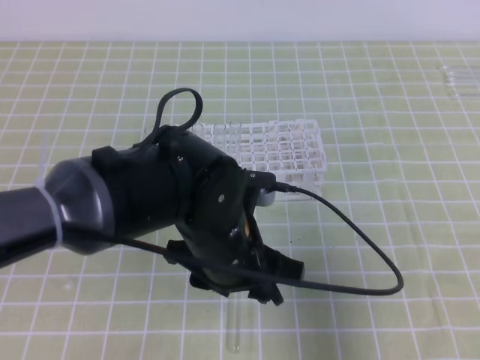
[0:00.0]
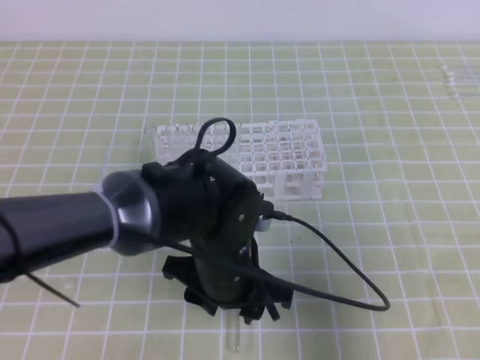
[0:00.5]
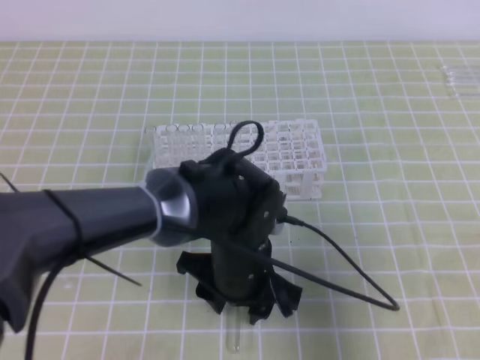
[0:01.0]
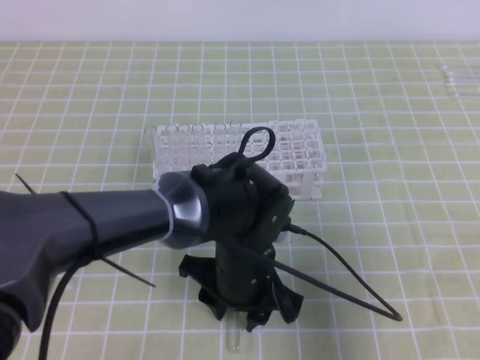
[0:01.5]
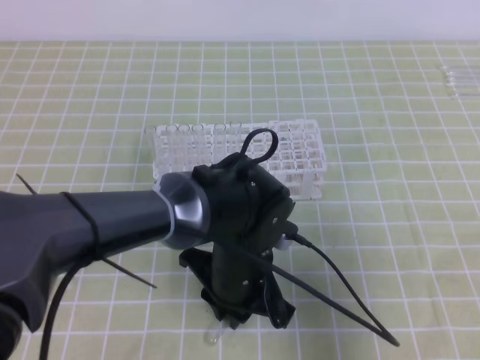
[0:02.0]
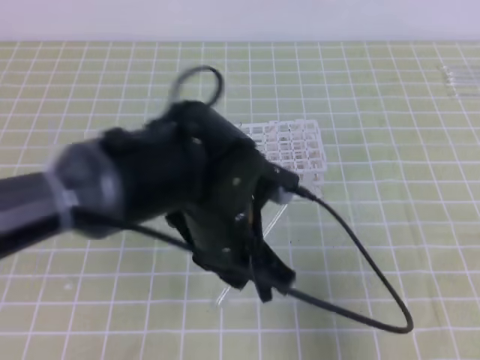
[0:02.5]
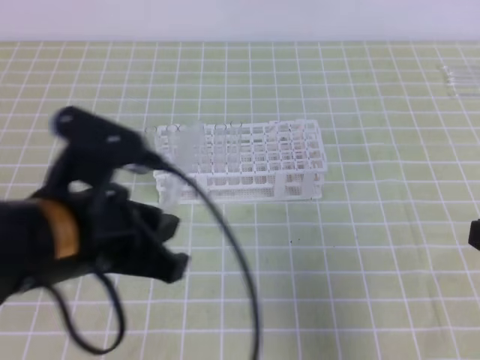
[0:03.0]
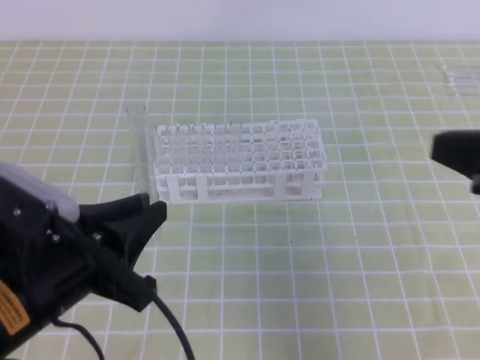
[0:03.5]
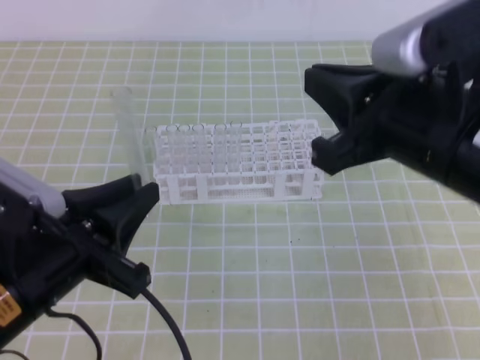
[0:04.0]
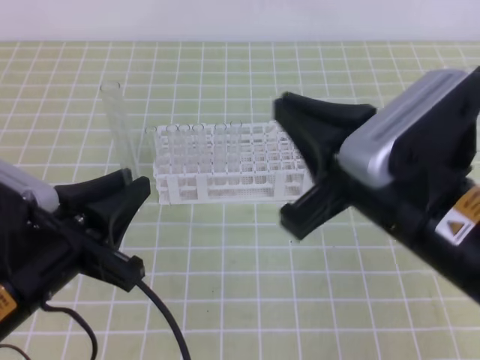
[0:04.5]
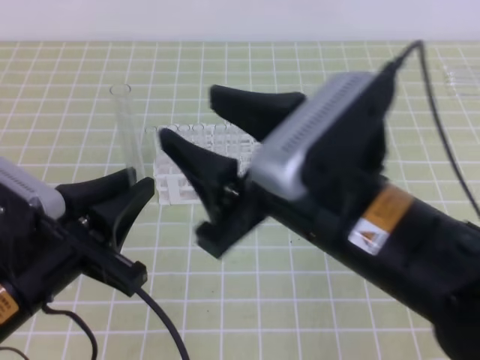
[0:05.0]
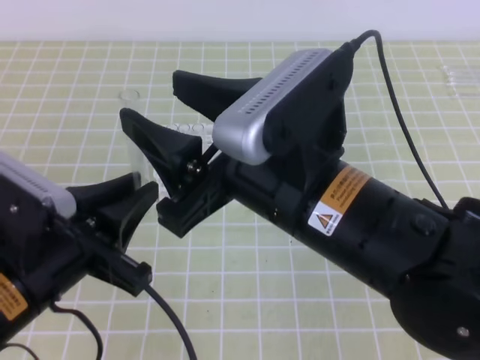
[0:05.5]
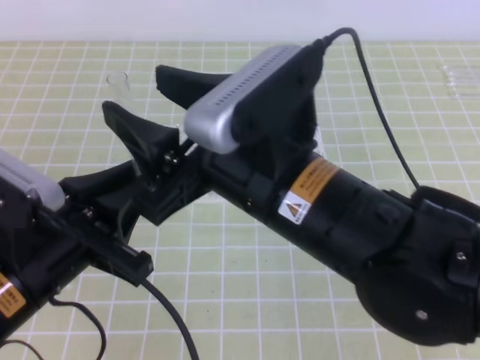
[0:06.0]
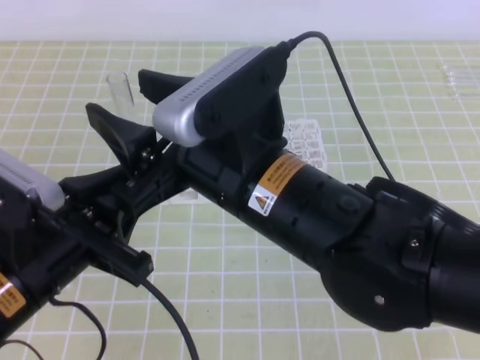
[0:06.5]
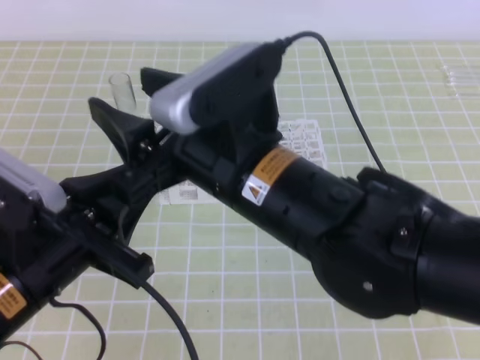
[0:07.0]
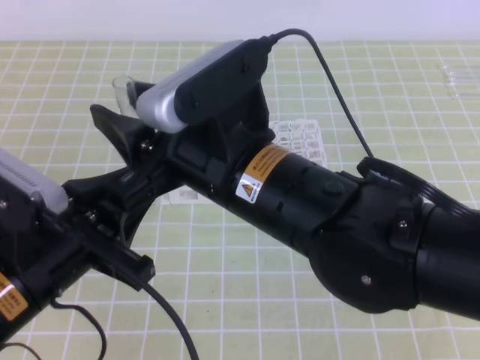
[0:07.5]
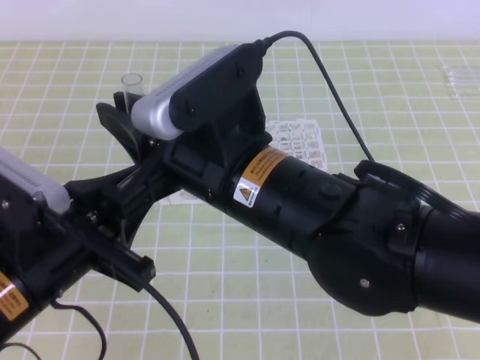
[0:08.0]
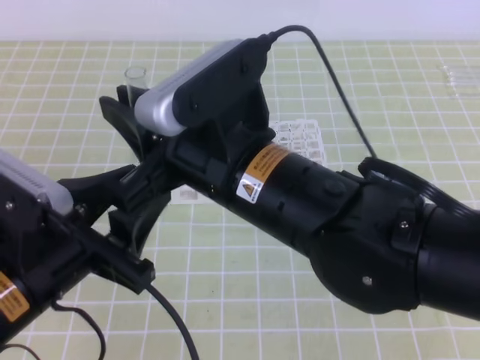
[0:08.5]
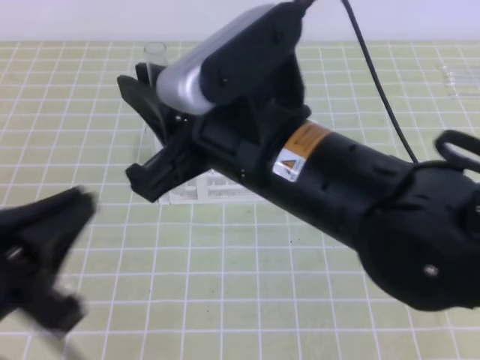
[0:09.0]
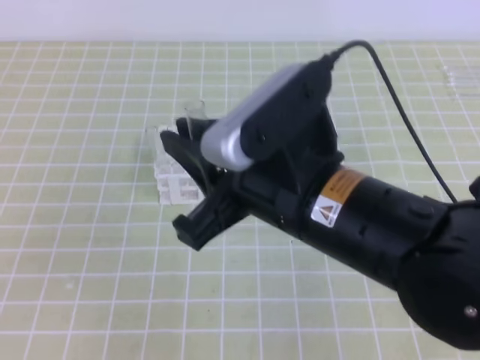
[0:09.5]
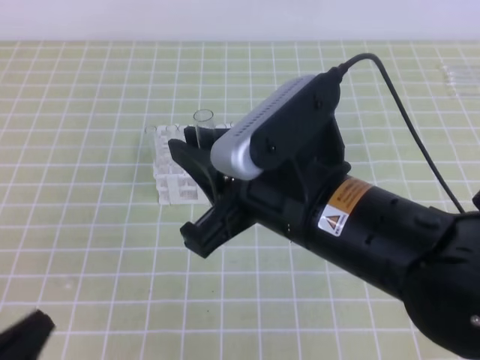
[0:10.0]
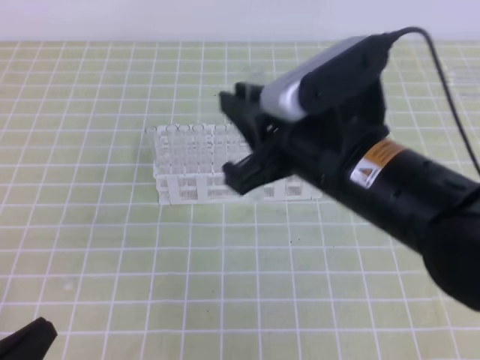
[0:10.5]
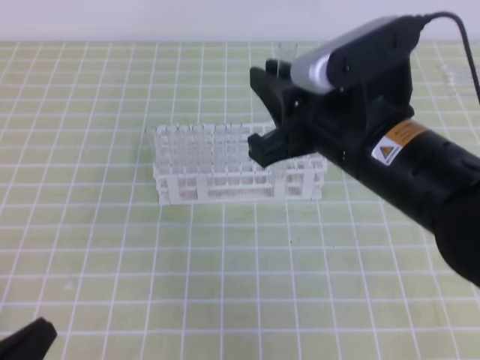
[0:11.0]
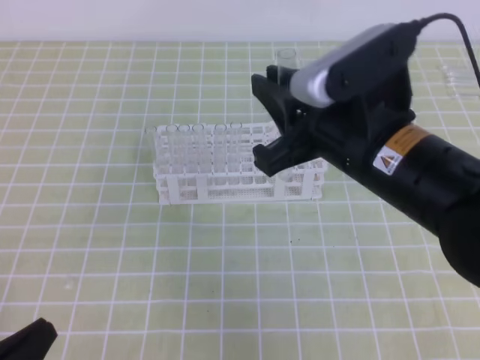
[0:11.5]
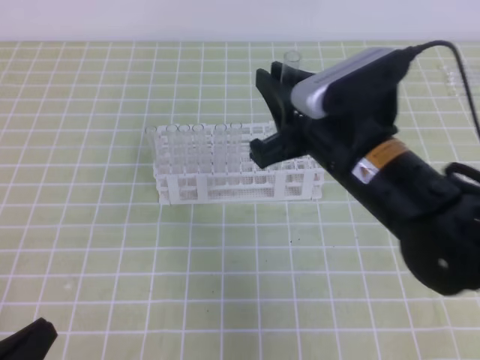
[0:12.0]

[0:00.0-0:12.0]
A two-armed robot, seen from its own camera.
0:00.0 to 0:02.0: The left gripper goes about 5 cm downward, and closes.
0:02.0 to 0:04.0: The left gripper heads to the left, upward and backward, covering approximately 20 cm; the right gripper goes some 15 cm to the left, forward and upward.
0:04.0 to 0:06.0: The right gripper shifts roughly 10 cm to the left, and opens up.
0:06.0 to 0:08.0: The right gripper closes its fingers.
0:08.0 to 0:10.0: The left gripper travels backward, to the left and downward by approximately 15 cm, and opens and closes again, while the right gripper travels to the right by about 5 cm.
0:10.0 to 0:12.0: The right gripper shifts roughly 10 cm forward.

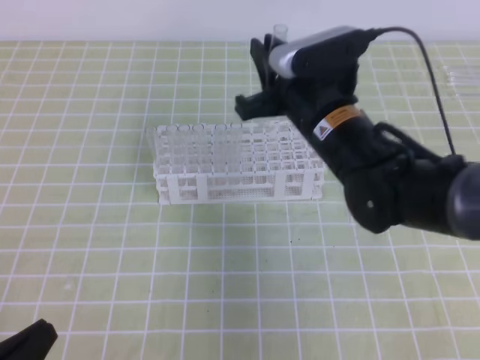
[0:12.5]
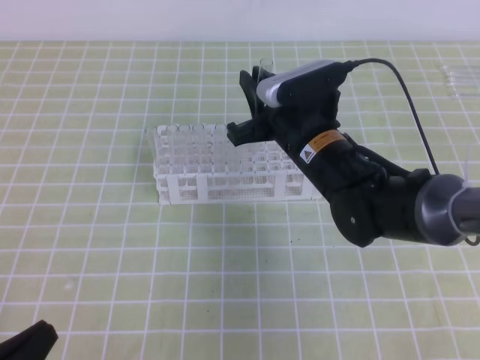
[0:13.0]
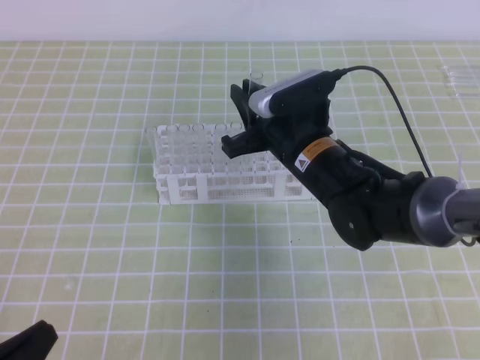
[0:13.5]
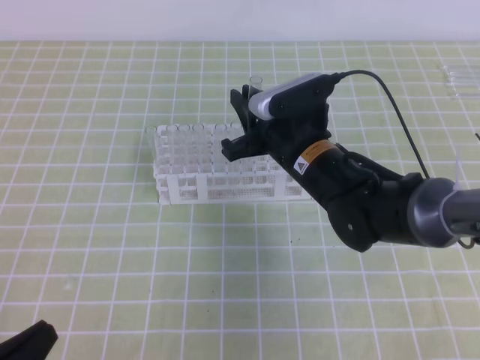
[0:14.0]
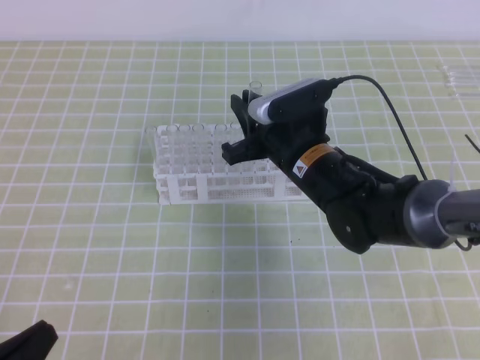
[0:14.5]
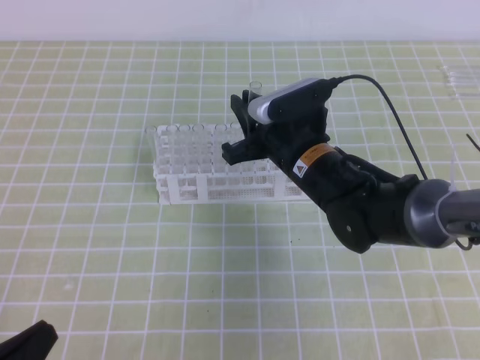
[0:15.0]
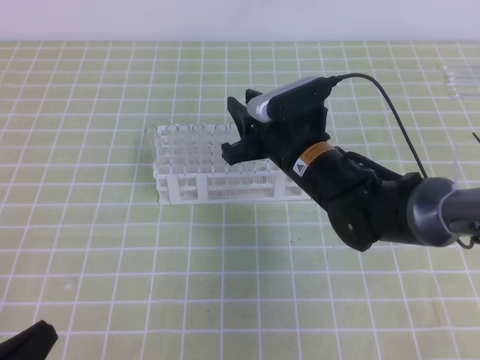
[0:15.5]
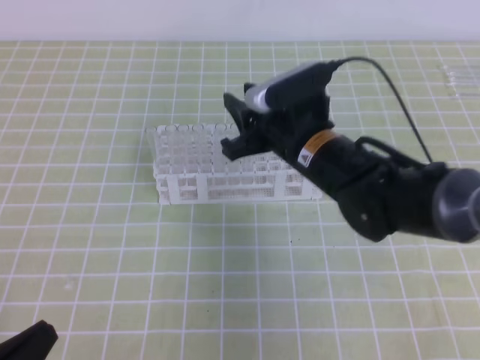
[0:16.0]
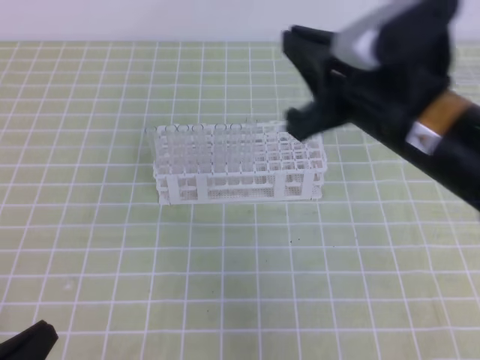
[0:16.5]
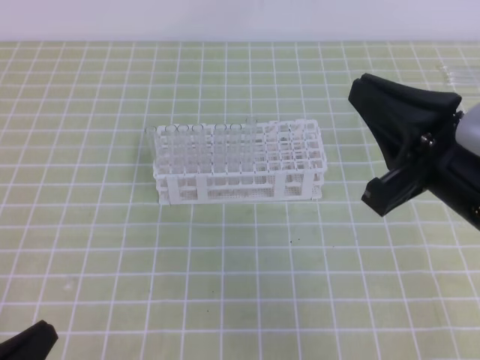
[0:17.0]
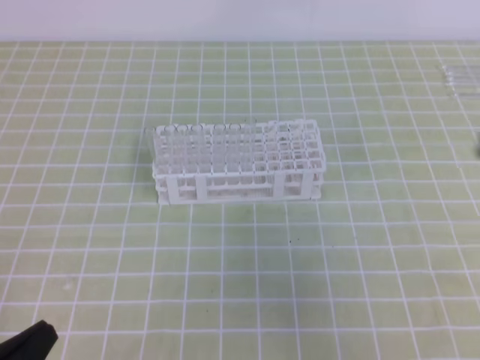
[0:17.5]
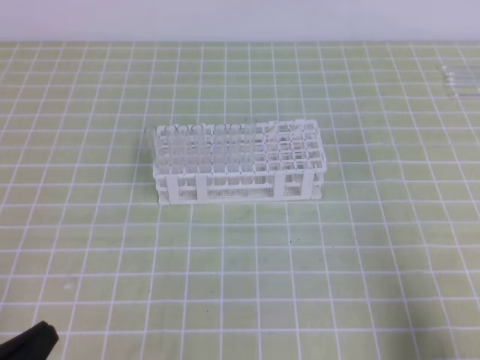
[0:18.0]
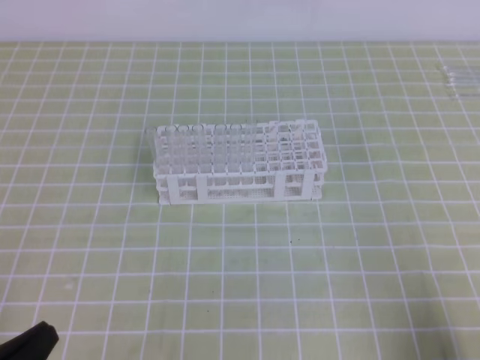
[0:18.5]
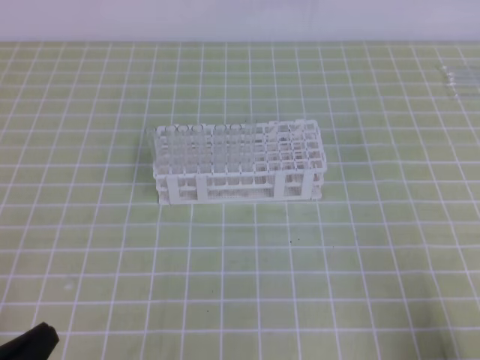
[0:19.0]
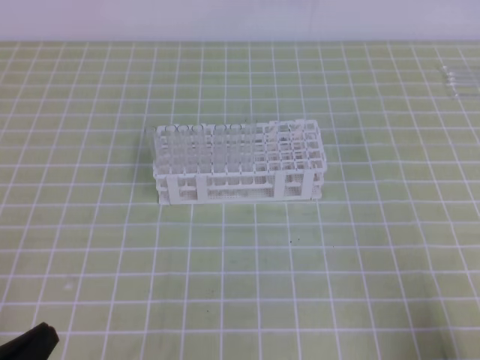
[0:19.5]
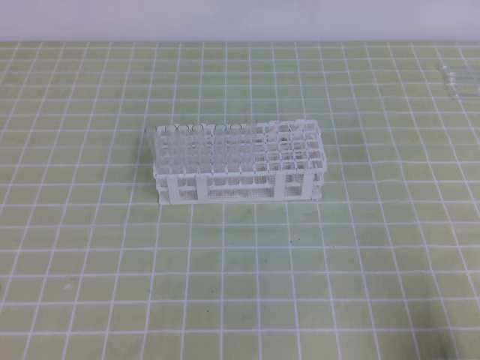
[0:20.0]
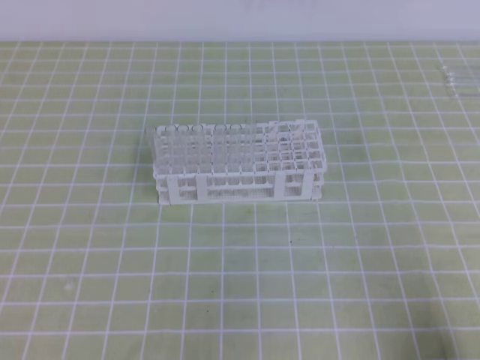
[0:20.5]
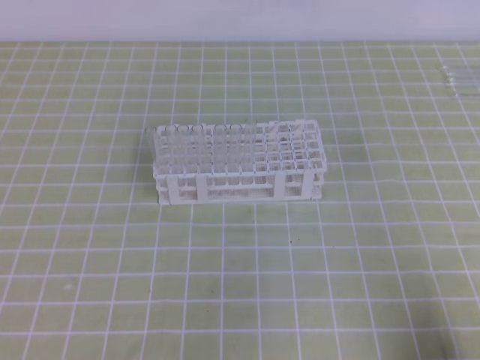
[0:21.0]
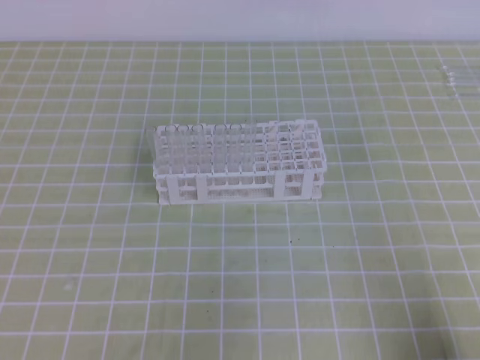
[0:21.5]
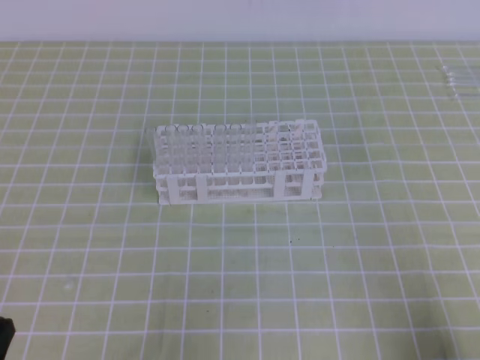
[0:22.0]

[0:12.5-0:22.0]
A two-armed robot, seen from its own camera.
0:12.5 to 0:14.5: The right gripper shifts approximately 5 cm downward.
0:14.5 to 0:16.5: The right gripper shifts roughly 20 cm upward, backward and to the right, and opens, then closes once more.
0:16.5 to 0:18.0: The right gripper moves to the right, backward and downward, about 30 cm.
0:18.0 to 0:20.0: The grippers stay close to where they were, moving slightly.

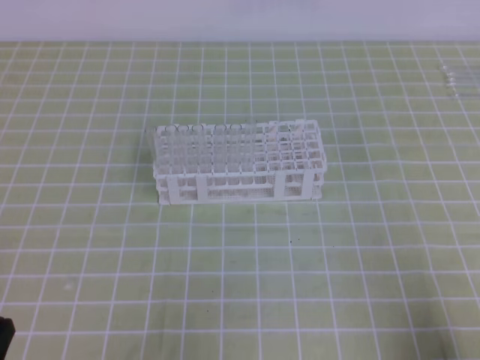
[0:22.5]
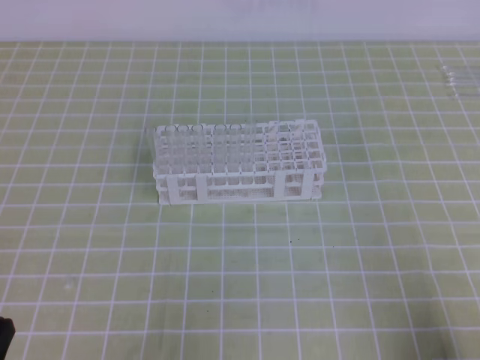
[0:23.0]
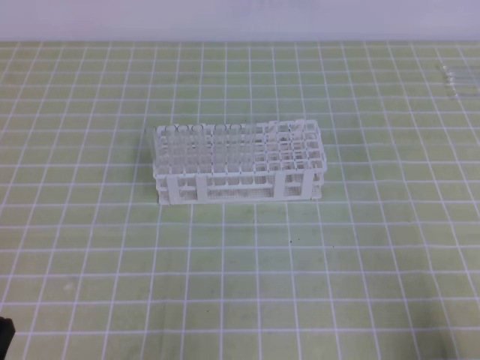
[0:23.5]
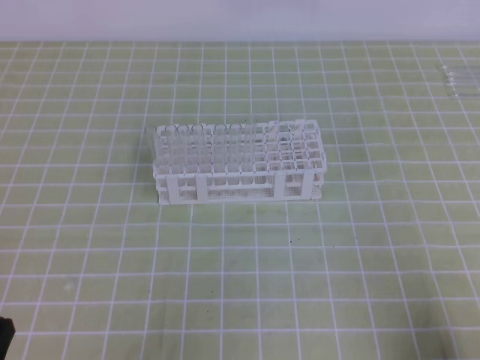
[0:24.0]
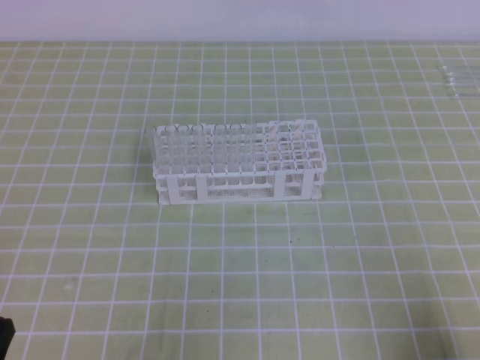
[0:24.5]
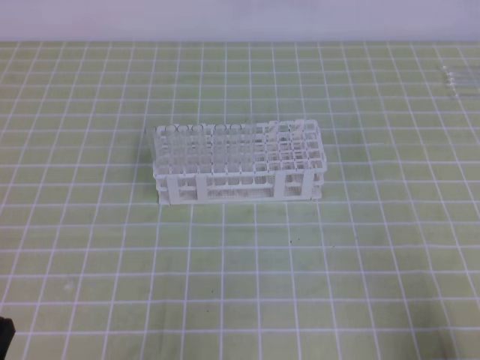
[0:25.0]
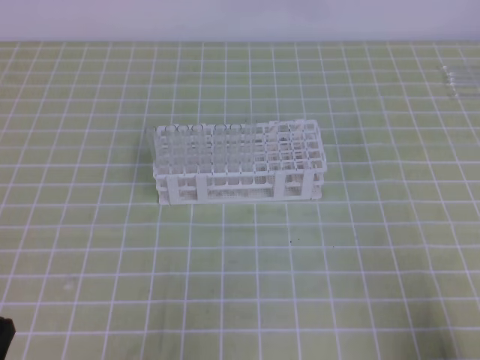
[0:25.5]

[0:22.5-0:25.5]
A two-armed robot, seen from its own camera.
0:22.5 to 0:25.5: Both grippers stay about where they are.

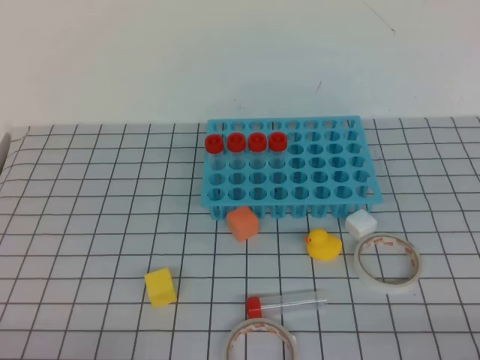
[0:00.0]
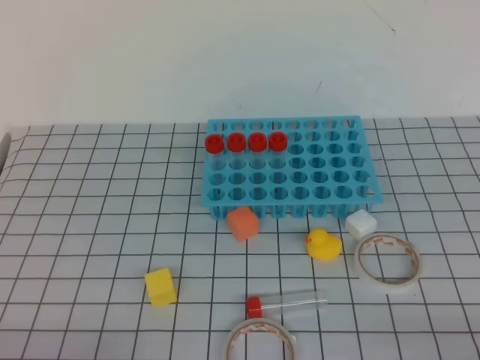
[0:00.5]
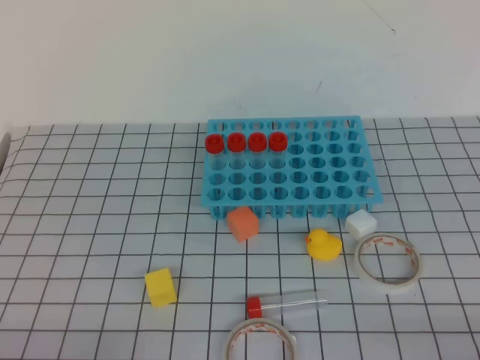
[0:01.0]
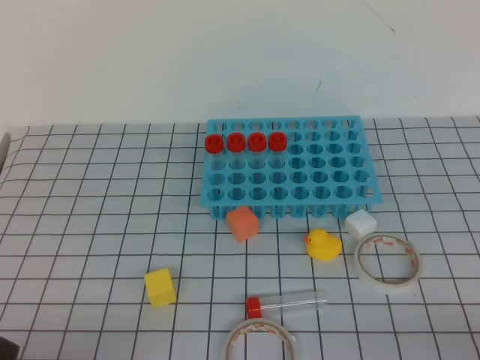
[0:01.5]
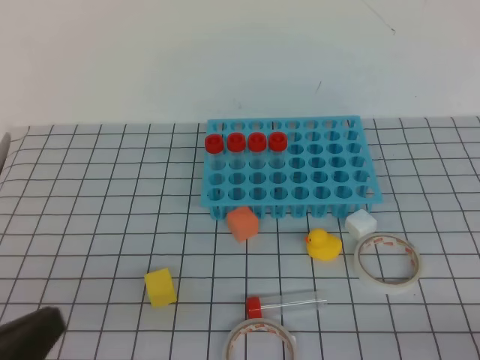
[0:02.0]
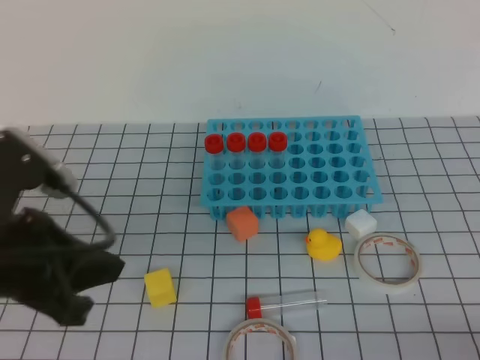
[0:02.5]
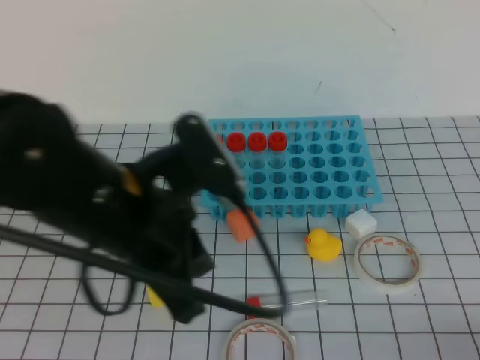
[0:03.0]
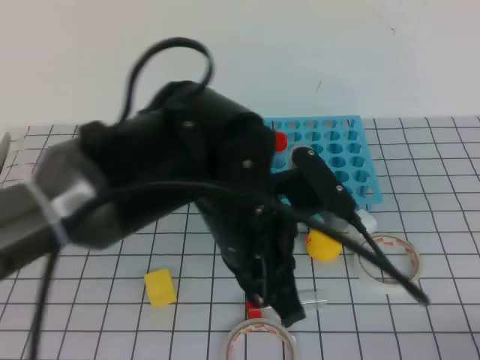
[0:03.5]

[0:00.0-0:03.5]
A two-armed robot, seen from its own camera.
0:00.0 to 0:02.0: The left gripper shifts some 10 cm upward.
0:02.0 to 0:03.5: The left gripper shifts roughly 25 cm to the right and forward.
